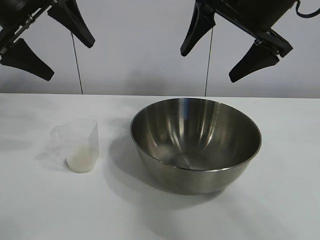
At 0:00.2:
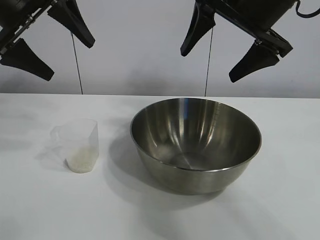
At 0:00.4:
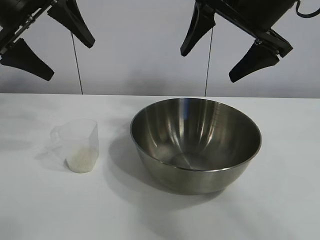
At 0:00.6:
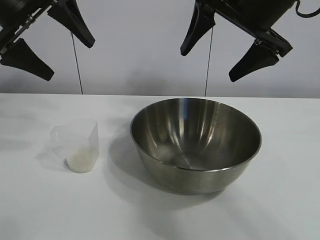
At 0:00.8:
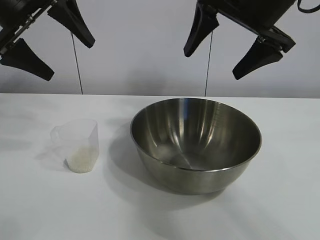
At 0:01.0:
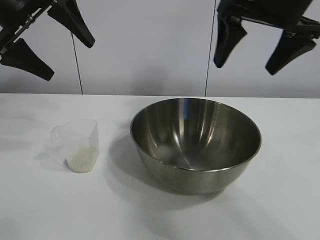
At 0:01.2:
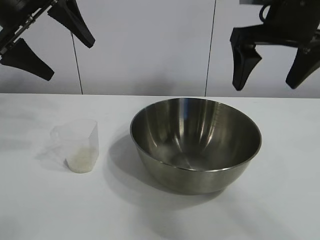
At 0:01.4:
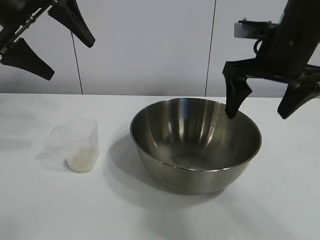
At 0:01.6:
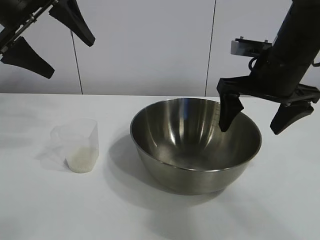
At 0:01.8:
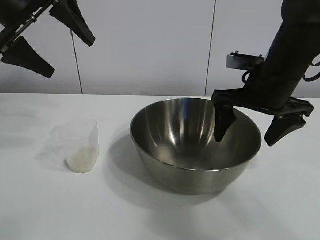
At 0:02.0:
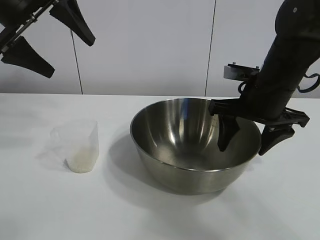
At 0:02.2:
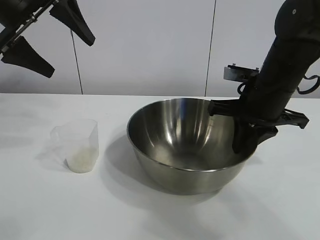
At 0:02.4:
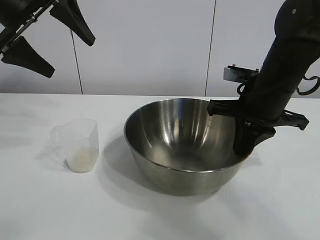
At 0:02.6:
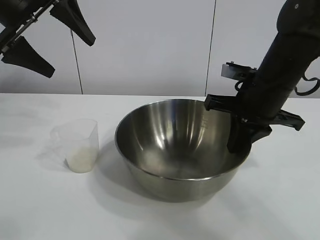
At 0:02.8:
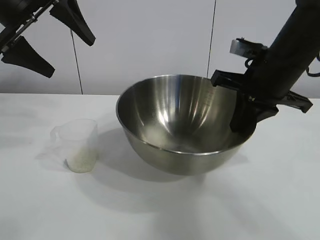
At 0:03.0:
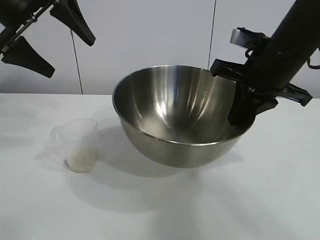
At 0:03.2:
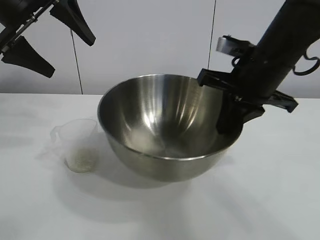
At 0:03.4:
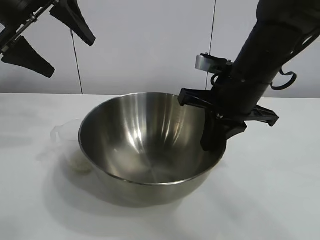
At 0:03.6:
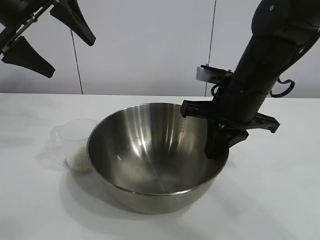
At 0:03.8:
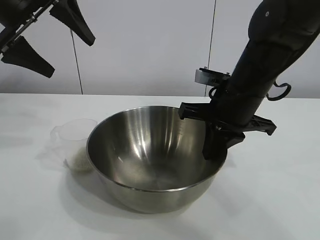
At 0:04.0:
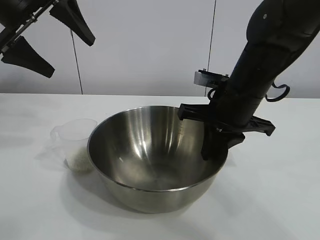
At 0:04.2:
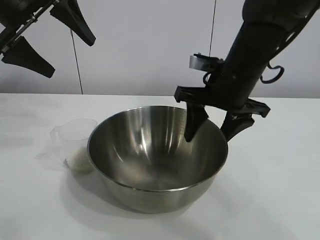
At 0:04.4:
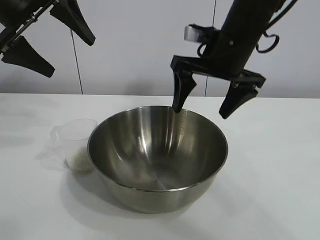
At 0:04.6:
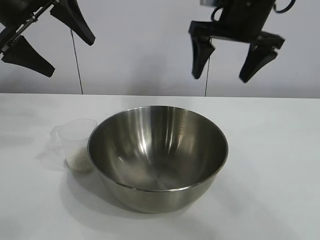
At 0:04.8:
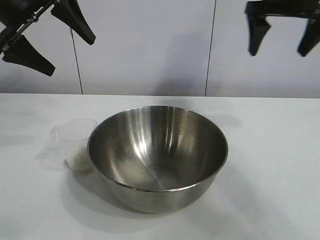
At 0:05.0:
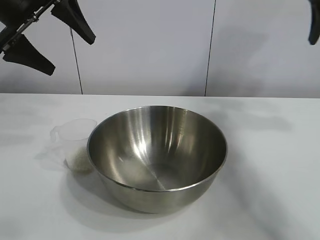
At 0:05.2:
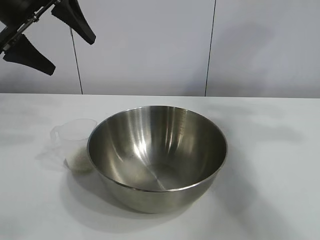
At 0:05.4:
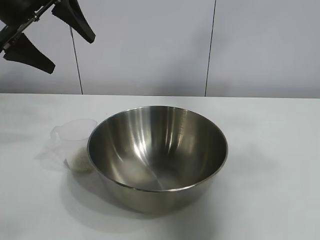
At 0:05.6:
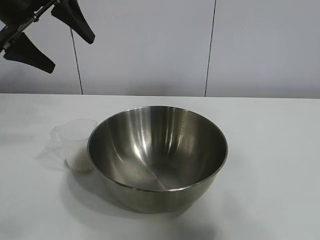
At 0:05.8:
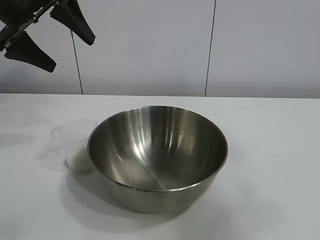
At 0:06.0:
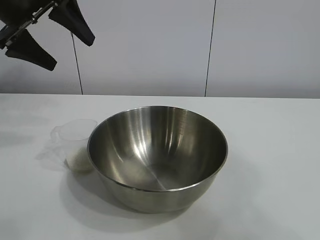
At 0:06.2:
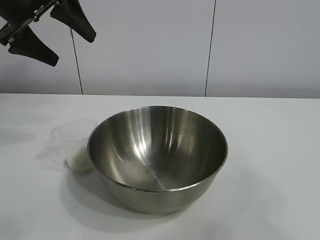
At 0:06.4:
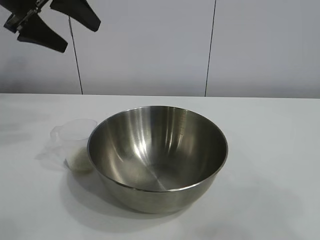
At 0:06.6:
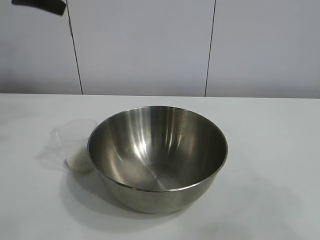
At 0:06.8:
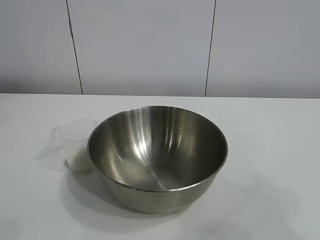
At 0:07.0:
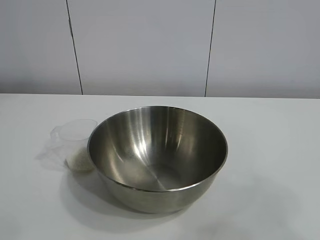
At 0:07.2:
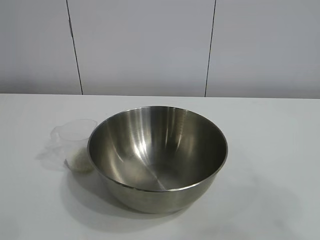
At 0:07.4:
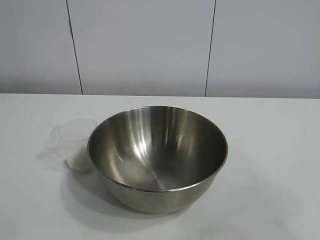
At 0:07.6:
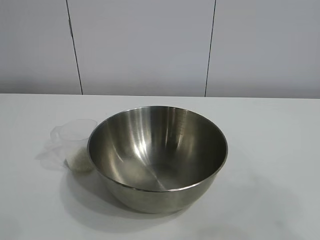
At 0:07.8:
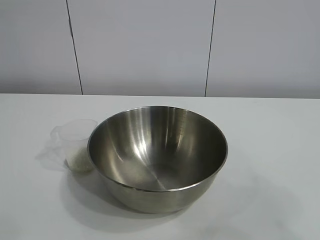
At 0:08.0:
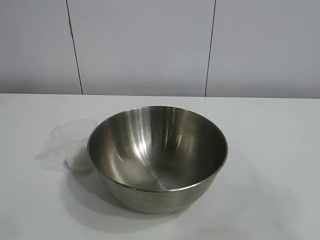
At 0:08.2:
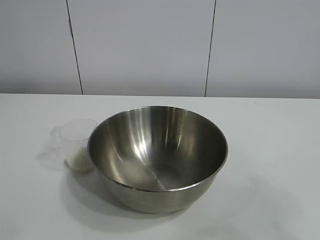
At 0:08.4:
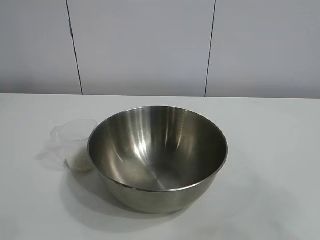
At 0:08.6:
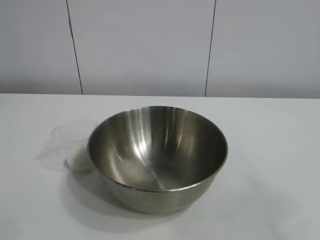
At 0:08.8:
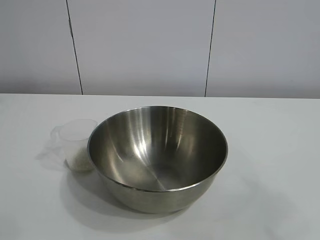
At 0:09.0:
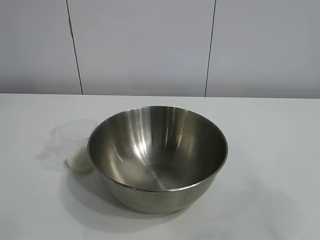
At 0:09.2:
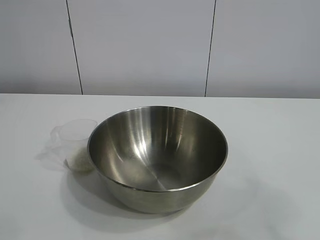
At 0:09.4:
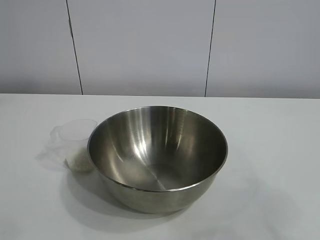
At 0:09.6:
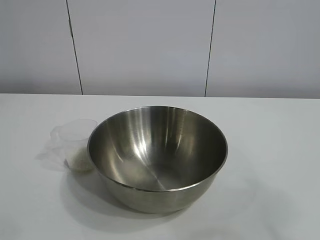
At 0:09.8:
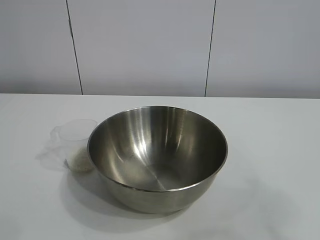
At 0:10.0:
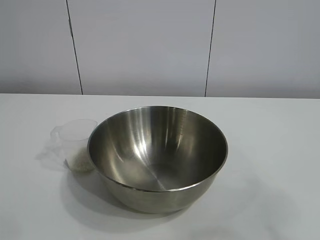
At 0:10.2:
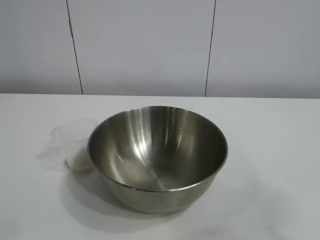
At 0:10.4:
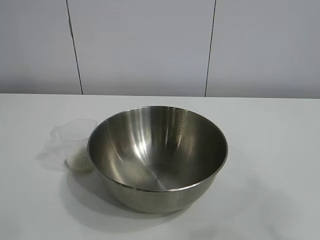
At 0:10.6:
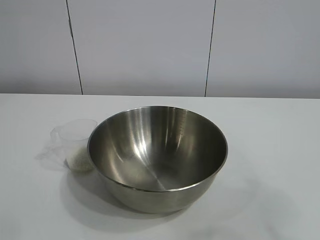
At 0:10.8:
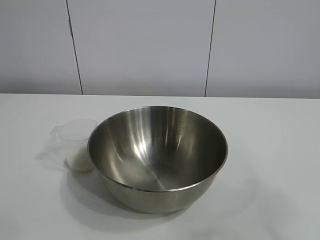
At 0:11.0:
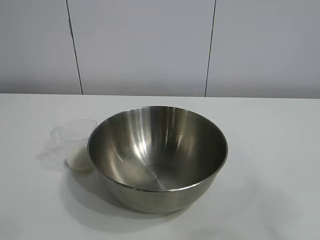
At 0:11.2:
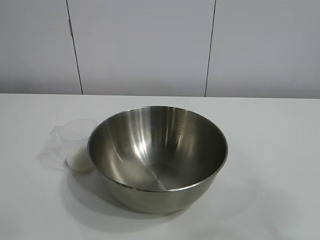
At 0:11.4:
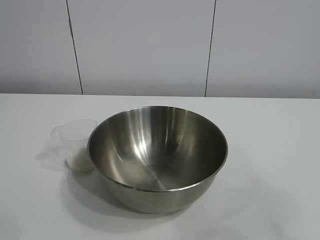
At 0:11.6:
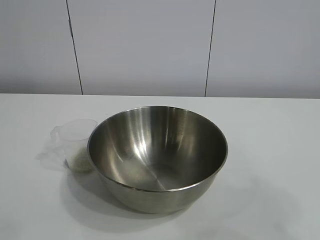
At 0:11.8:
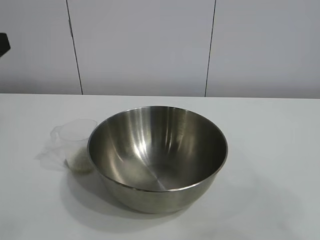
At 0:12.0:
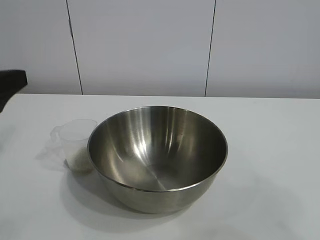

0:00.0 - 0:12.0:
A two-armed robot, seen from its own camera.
Task of the whole recording: the right gripper grasp the rice container and place it in the center of the table, the left gripper grasp the rice scoop and pour the rice into the rice container.
Step, 0:00.8 - 0:04.0: Move the bowl in the center of view with right gripper.

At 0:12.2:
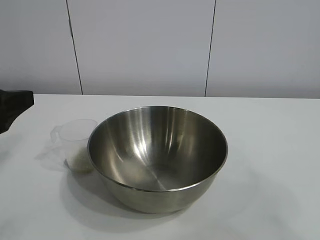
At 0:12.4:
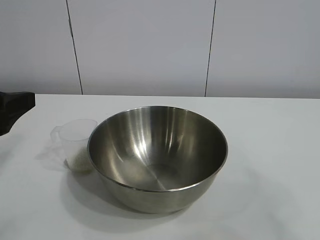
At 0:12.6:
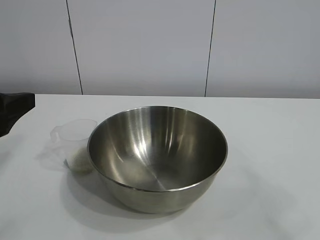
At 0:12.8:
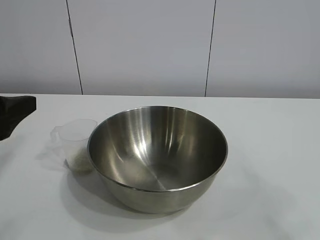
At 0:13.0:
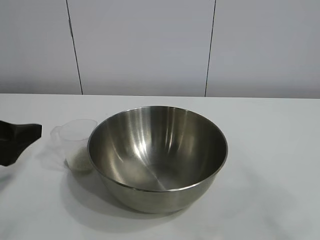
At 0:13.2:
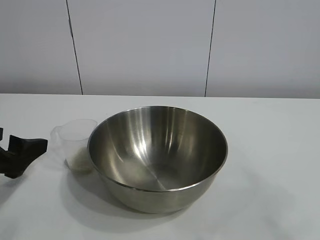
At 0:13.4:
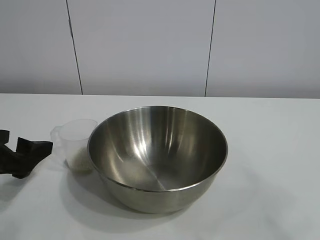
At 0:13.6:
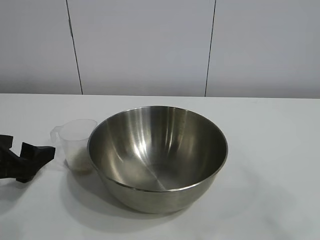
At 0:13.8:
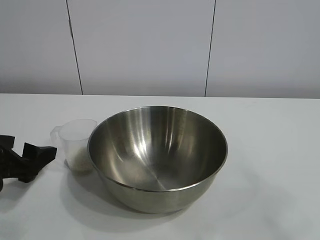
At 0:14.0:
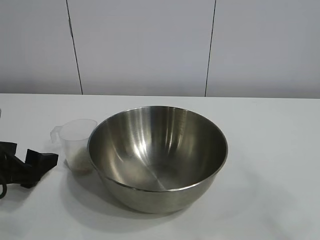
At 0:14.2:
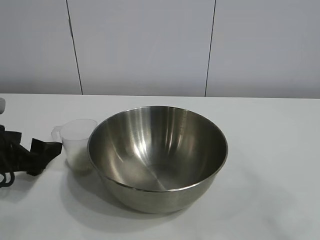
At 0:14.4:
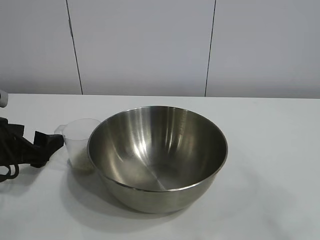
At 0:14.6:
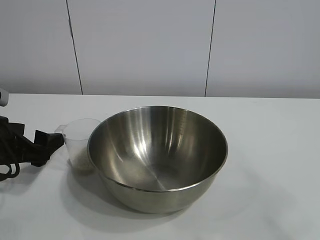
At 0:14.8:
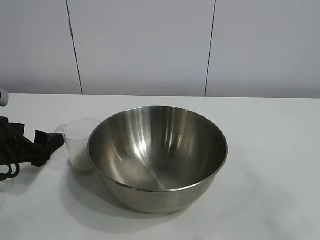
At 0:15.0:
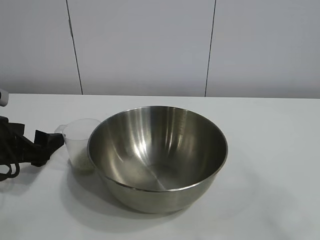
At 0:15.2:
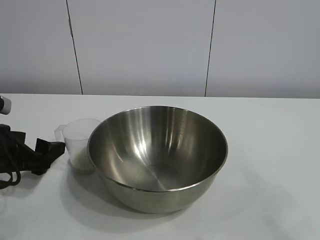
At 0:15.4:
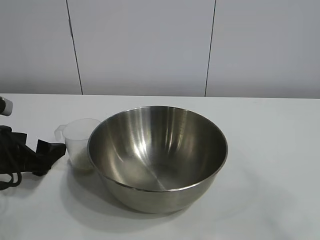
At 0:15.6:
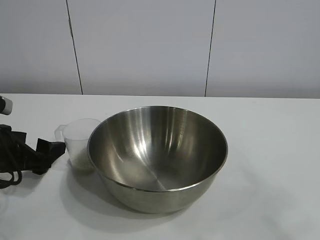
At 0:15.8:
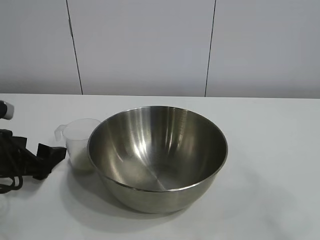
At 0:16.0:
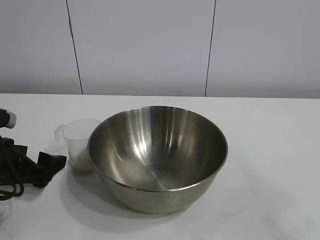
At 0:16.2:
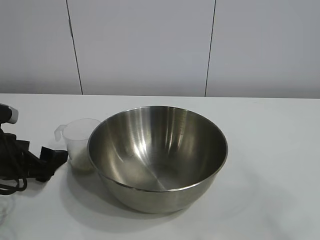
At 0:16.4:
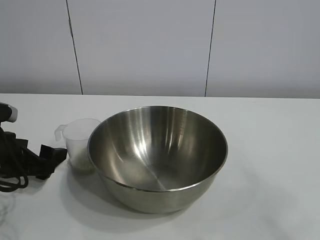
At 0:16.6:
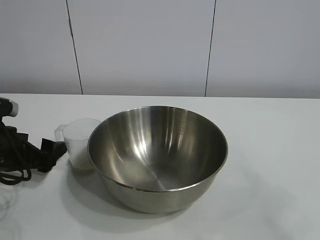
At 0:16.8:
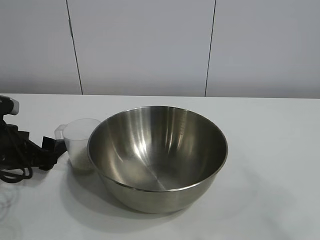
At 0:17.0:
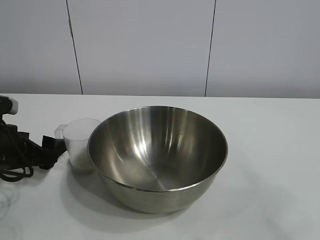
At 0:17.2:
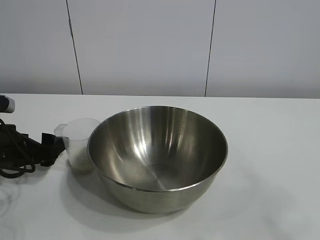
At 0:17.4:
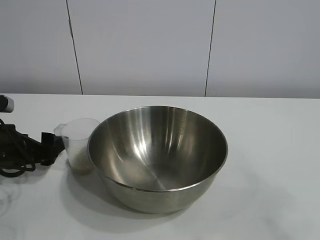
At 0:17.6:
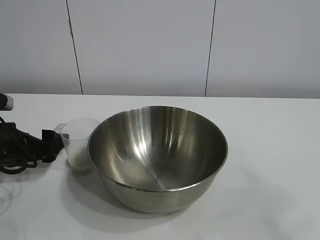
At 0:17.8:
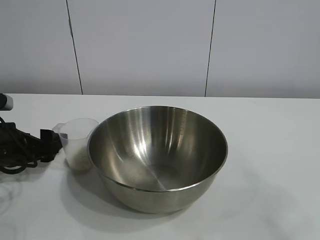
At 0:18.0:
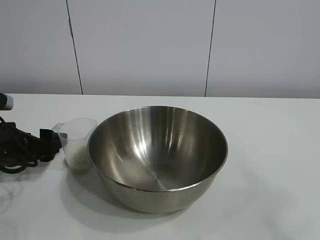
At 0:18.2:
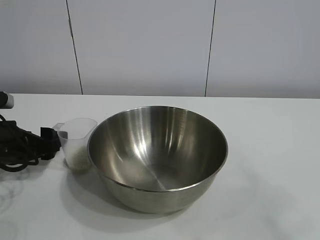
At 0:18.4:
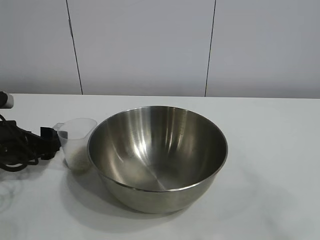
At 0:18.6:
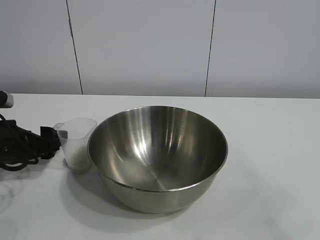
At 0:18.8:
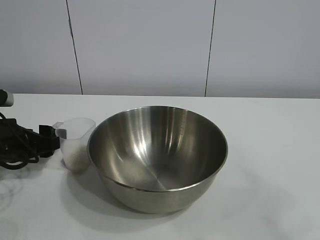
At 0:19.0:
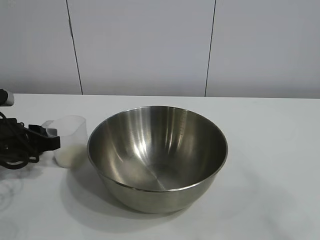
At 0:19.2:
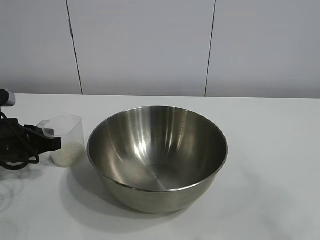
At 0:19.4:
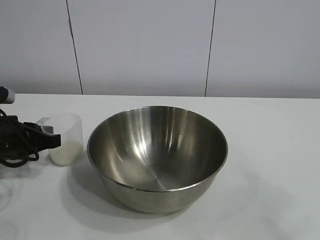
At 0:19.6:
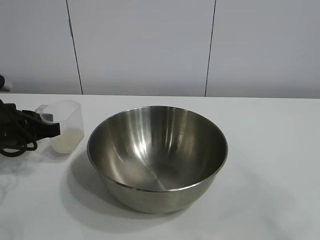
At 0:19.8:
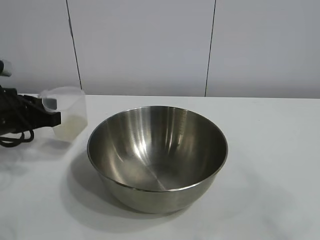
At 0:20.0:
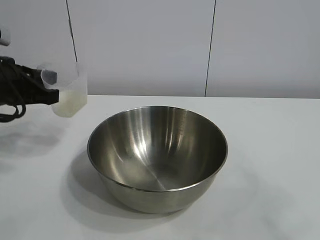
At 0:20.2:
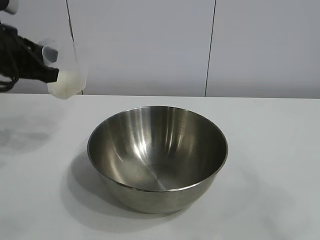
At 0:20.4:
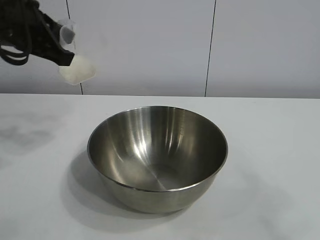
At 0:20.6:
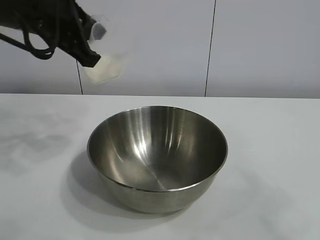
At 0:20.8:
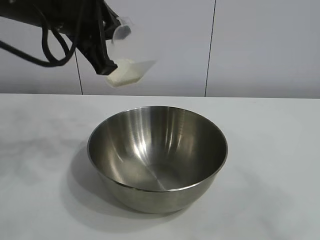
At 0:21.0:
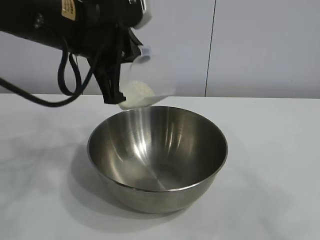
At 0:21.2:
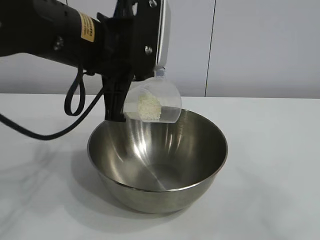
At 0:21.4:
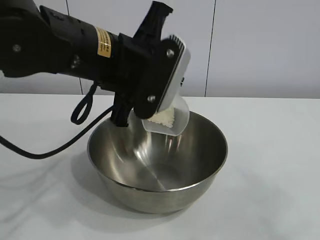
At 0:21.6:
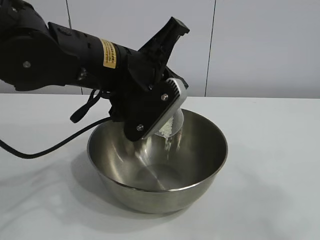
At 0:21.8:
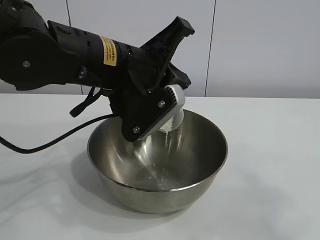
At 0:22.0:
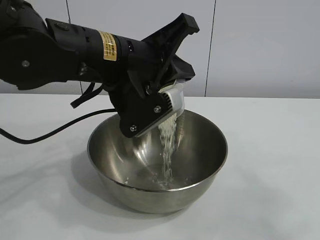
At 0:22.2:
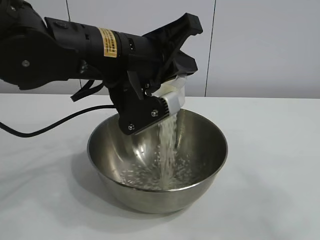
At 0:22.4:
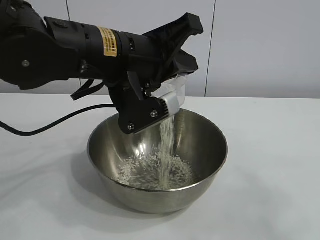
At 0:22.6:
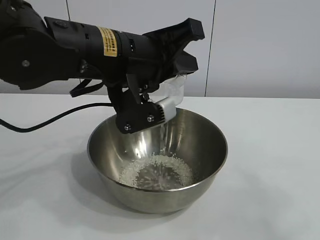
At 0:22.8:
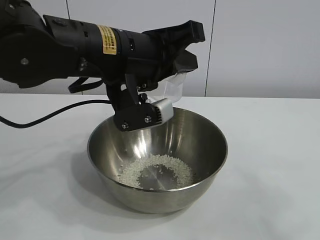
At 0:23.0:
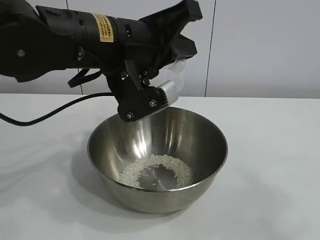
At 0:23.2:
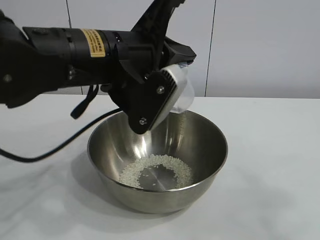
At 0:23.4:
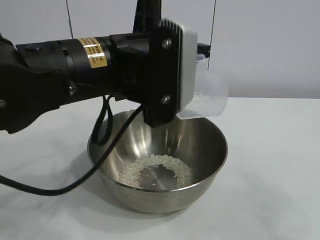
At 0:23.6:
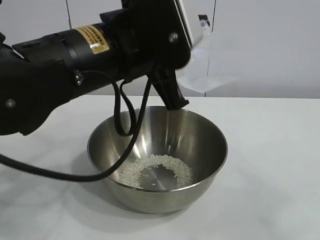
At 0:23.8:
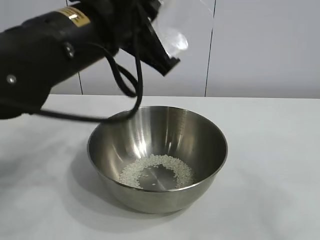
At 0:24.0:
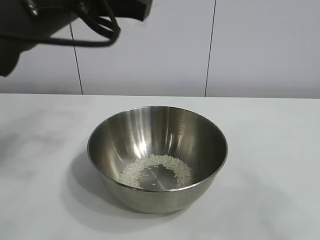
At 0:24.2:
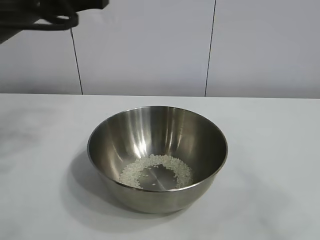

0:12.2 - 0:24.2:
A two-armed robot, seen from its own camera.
Task of the whole recording: the right gripper grasp the rice container and place it in the center of the table, the left gripper grasp the rice scoop and pour the rice into the rice container.
Step, 0:12.2 - 0:19.2: Grasp the cup with rice in it with left gripper.
Step, 0:19.4 - 0:23.0: Pour the rice from the cup into the bowl with the left gripper.
